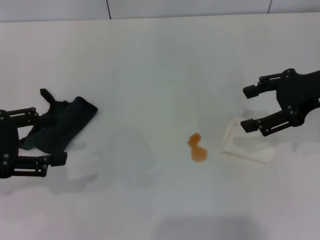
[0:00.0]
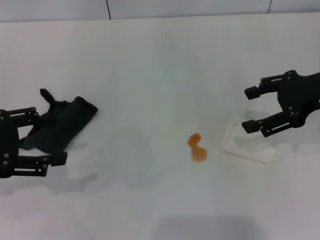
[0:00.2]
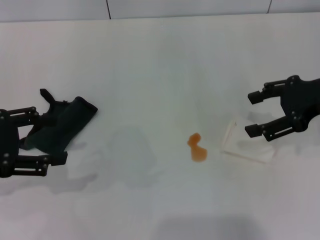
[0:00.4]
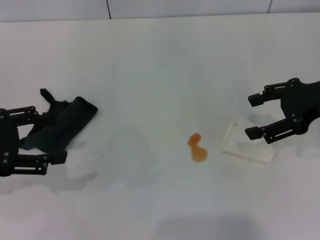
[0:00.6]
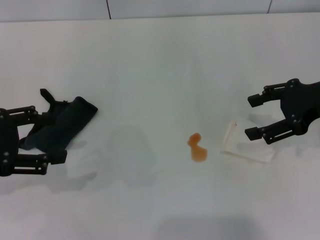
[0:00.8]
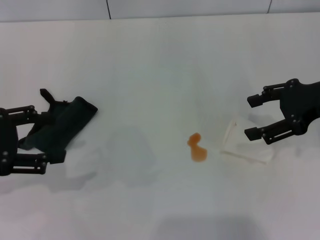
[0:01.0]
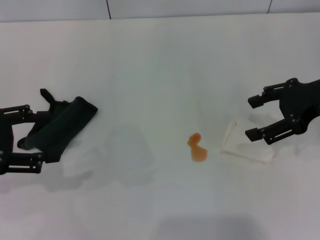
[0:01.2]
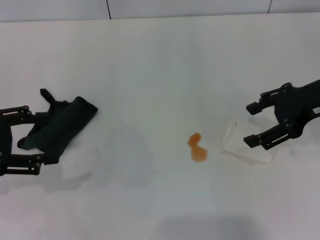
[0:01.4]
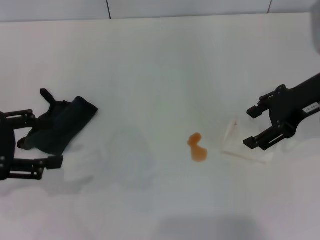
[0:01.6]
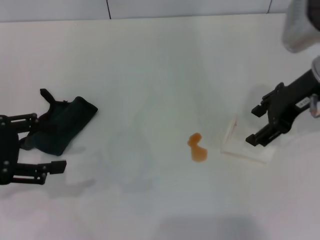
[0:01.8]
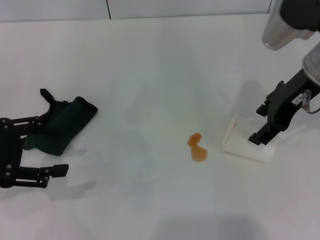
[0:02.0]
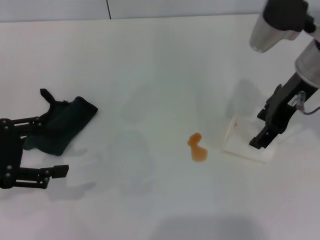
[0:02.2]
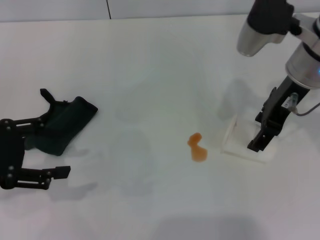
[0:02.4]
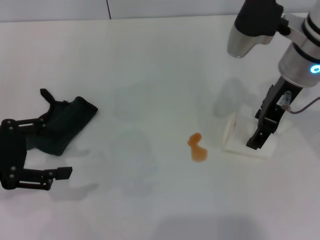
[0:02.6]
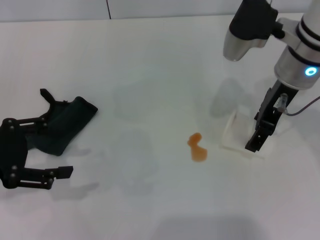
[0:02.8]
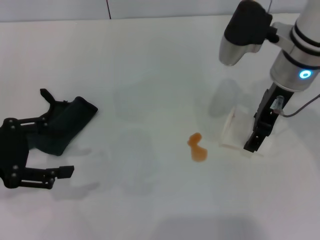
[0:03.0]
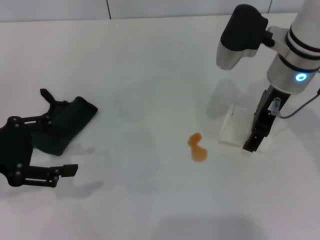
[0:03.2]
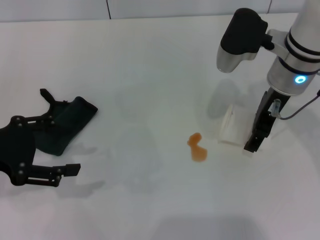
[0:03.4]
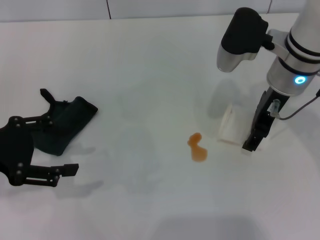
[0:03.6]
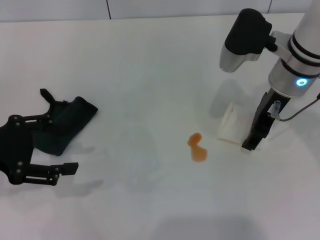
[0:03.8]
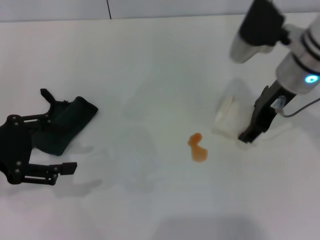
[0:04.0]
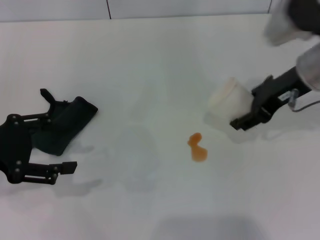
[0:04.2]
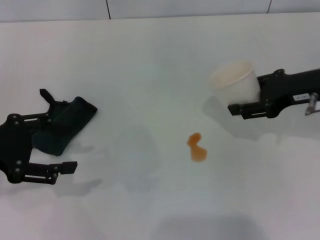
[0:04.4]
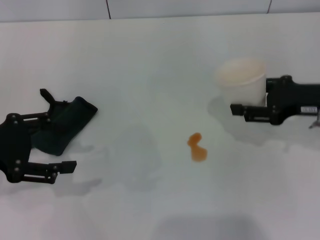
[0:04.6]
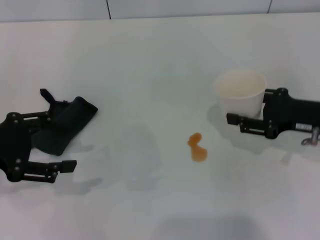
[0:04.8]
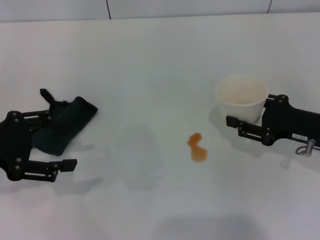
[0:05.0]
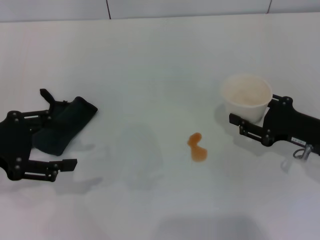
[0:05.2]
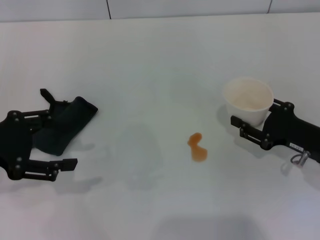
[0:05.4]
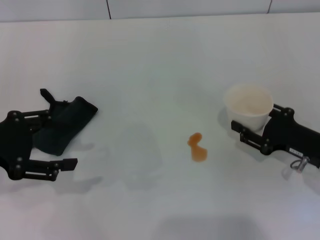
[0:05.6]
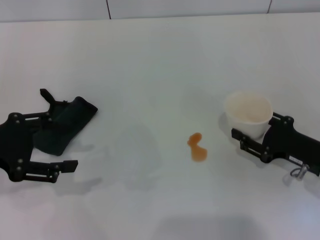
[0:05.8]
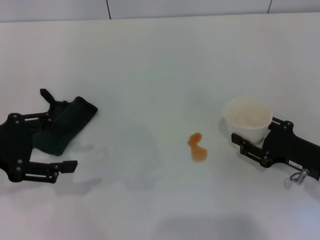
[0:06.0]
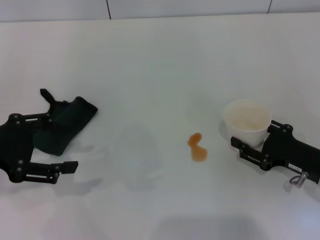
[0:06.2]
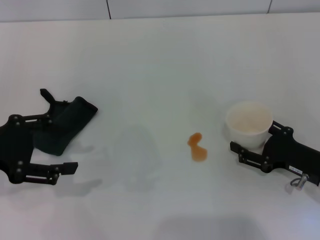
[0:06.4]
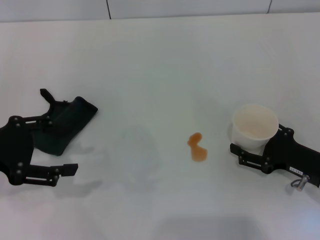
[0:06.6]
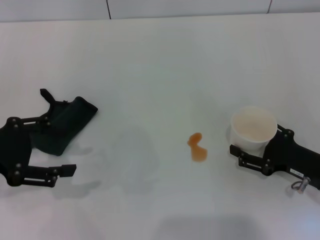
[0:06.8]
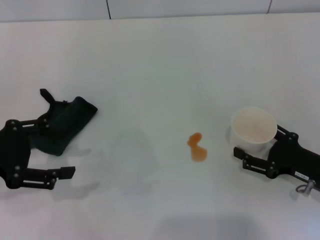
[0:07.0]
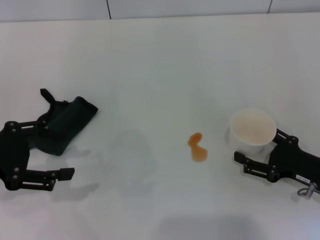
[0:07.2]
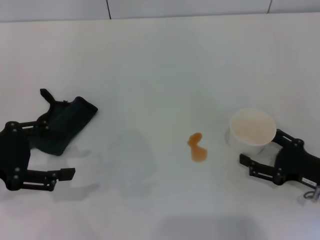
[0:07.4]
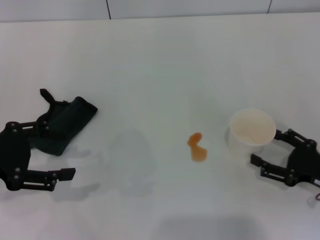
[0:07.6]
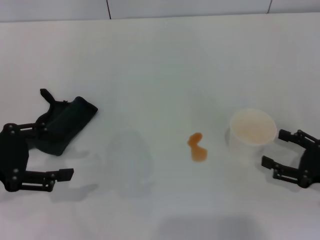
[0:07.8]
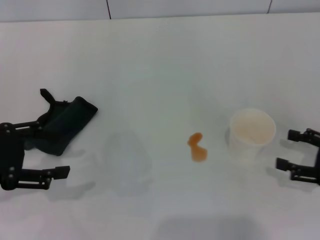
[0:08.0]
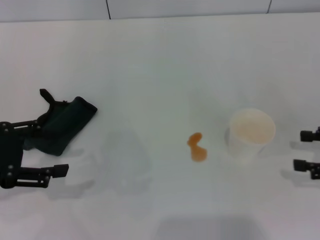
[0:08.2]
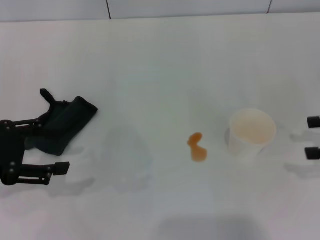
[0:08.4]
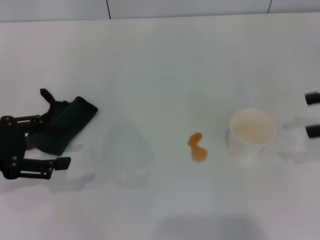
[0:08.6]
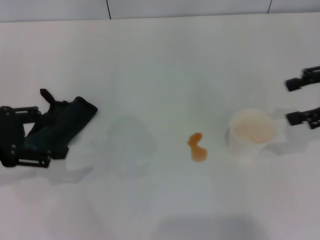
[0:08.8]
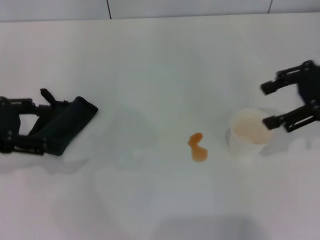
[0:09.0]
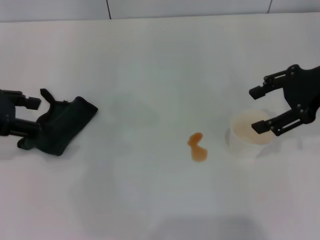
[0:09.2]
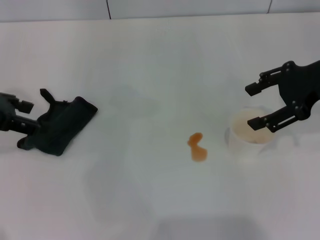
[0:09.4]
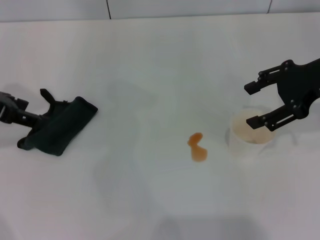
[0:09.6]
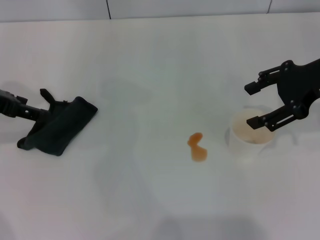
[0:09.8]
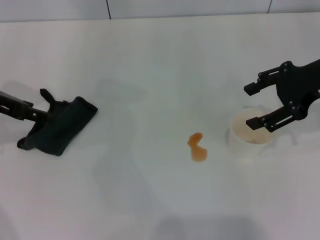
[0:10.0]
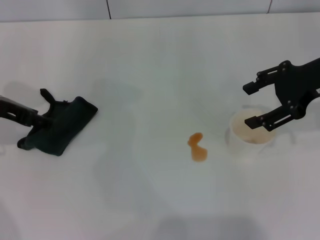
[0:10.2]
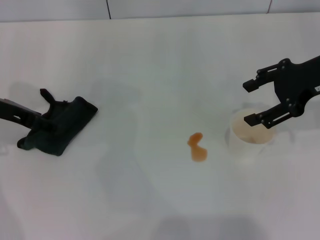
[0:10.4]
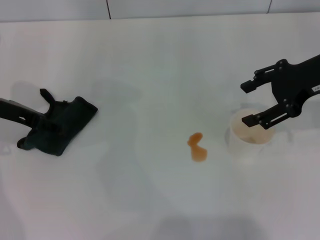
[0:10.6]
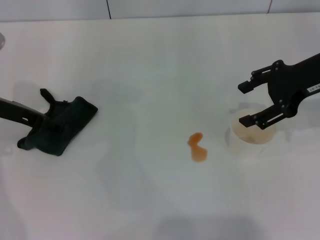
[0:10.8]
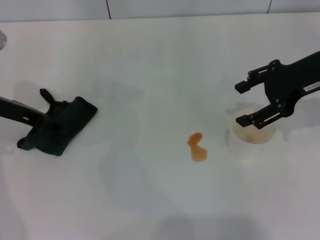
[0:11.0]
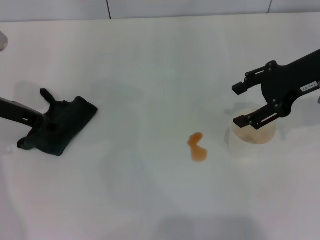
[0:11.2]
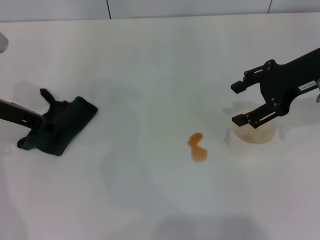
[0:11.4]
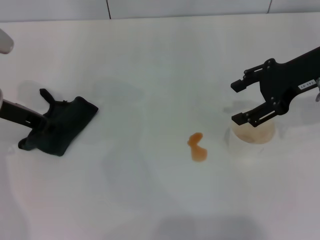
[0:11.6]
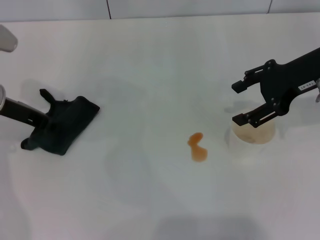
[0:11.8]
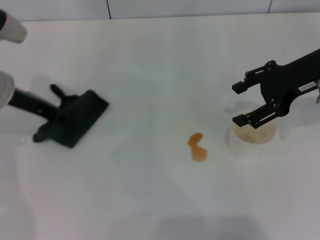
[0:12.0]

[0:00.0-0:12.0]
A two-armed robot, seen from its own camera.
Step, 0:00.0 to 0:03.4: Grasp the paper cup with the right gripper.
Step, 0:03.6 to 0:07.6: Stand the paper cup upright with the right gripper.
Step, 0:07.8 to 0:11.6: Grasp the rag with the left gripper.
0:01.6 to 0:03.0: The right gripper is displaced to the left by approximately 10 cm.
0:03.0 to 0:04.4: The right gripper travels to the right by some 10 cm, and closes.
0:04.4 to 0:06.0: The right gripper is displaced downward and backward by roughly 15 cm.
0:06.0 to 0:07.6: The right gripper opens up.
0:07.6 to 0:09.0: The right gripper heads upward and forward, covering about 25 cm.
0:09.0 to 0:10.4: The left gripper moves forward, some 5 cm.
0:10.4 to 0:12.0: The left gripper closes its fingers.

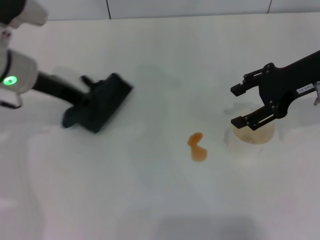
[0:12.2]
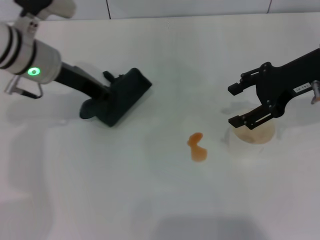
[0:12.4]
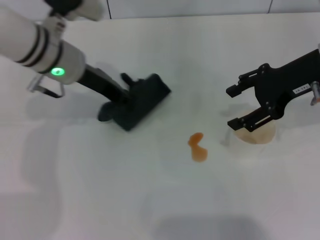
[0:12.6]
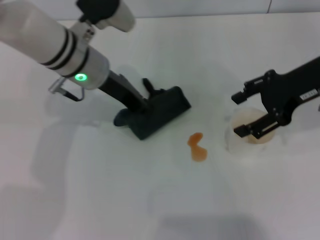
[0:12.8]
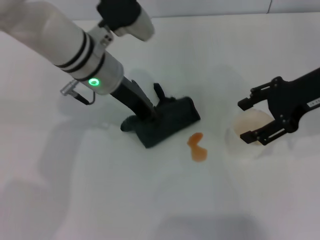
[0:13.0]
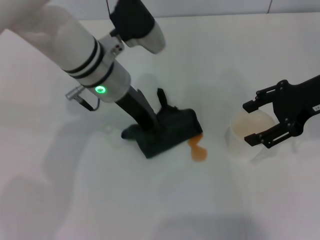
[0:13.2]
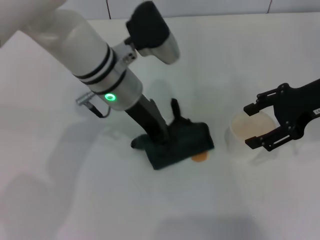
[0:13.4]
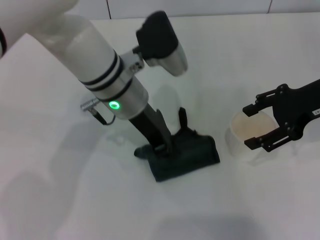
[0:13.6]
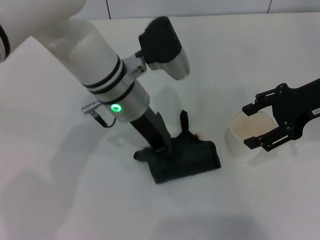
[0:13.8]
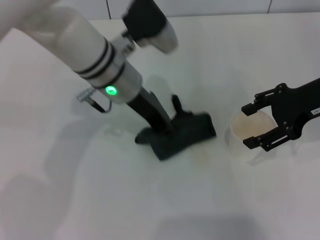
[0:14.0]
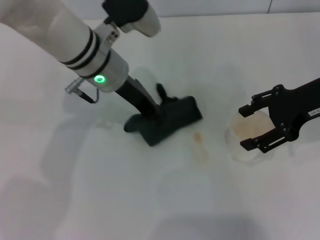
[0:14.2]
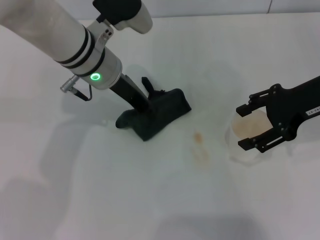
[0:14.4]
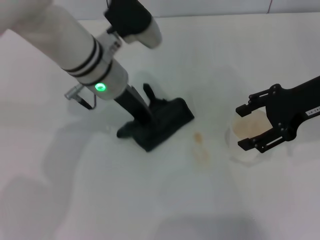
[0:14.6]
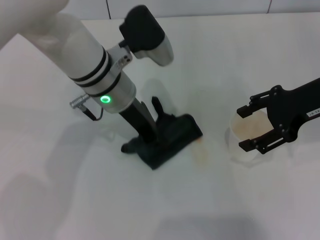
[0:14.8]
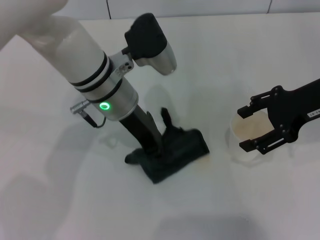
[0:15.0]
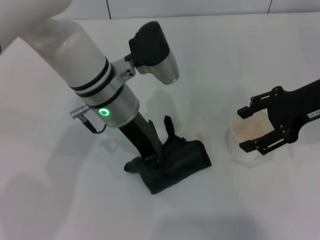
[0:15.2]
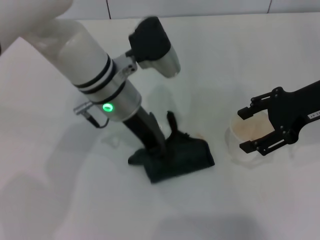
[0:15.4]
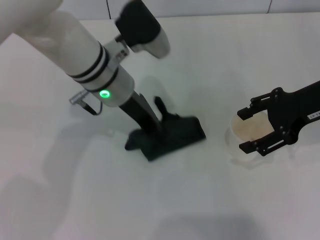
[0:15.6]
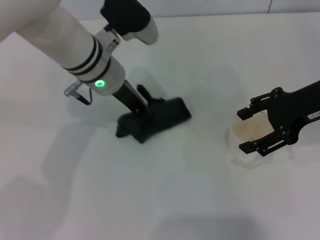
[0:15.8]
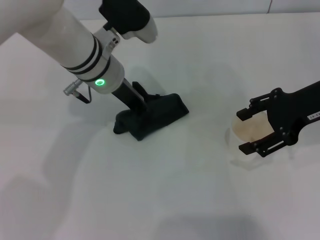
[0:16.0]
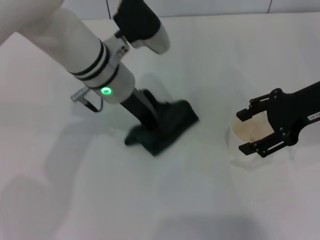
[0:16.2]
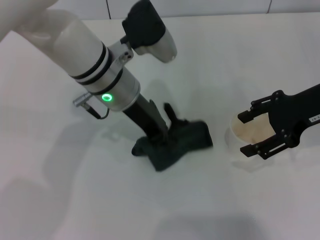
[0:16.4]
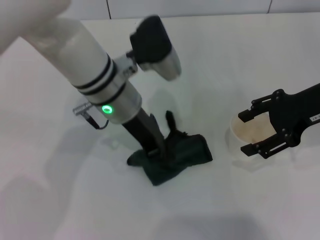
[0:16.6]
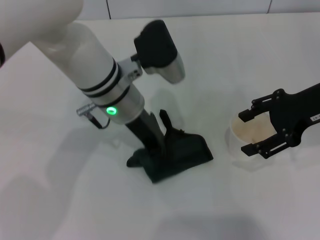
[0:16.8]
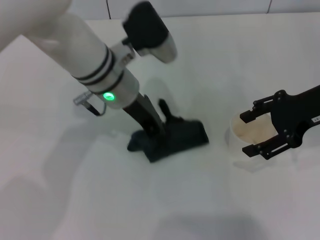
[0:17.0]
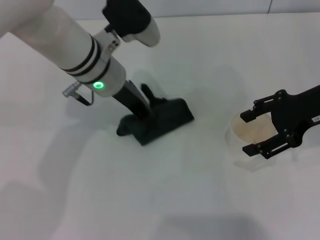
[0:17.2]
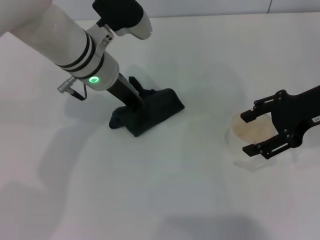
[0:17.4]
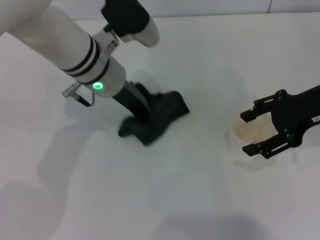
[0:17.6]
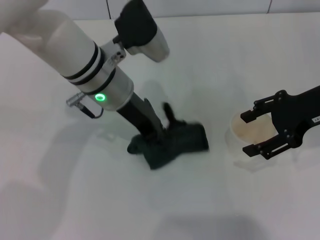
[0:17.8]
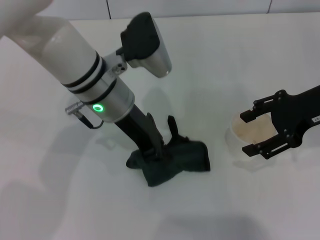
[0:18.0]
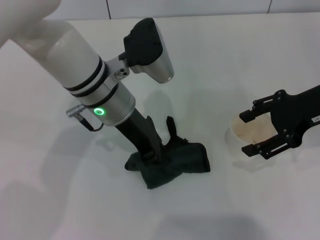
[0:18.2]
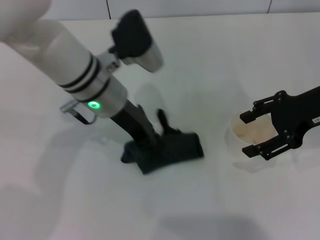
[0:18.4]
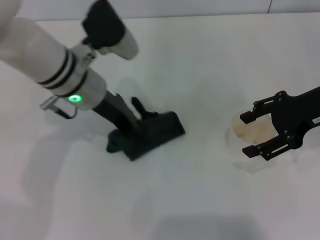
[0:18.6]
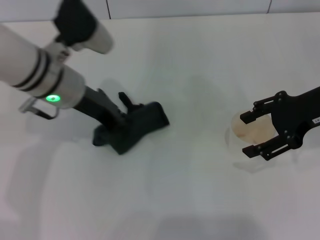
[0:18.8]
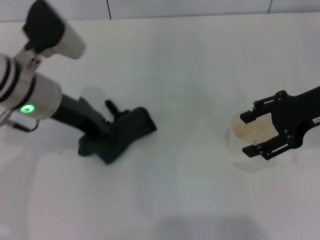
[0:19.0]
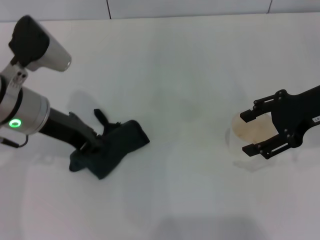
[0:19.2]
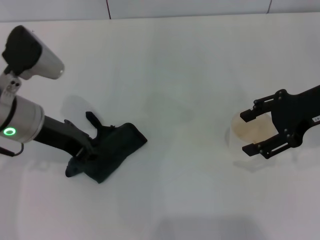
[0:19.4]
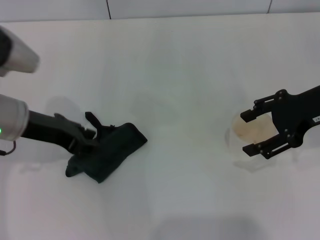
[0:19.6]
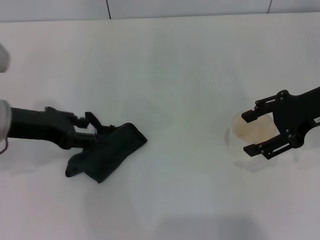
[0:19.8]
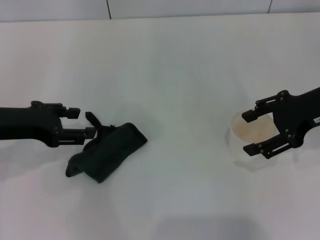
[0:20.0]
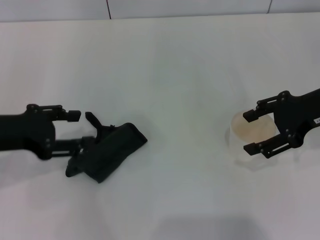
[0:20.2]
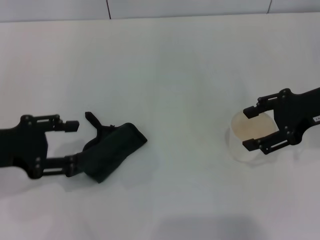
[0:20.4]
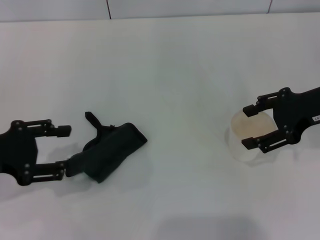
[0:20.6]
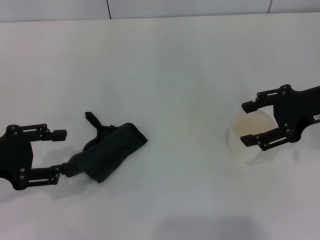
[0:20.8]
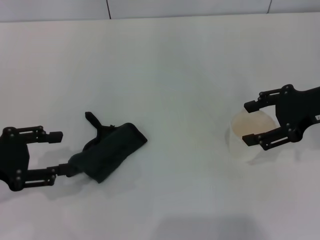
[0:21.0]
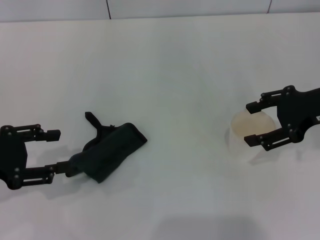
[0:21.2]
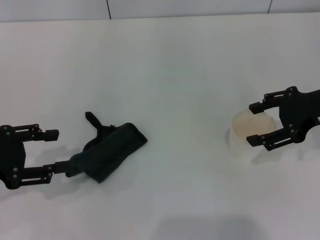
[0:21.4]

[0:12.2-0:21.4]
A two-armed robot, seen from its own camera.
Step, 0:12.2 to 0:19.4: Wipe the stains off the table with the left gripper.
Step, 0:19.6 to 0:20.0: Place the rag on the table with the left gripper.
0:12.2 to 0:13.8: The left gripper is displaced to the right by approximately 15 cm.
0:18.4 to 0:19.8: The left gripper shifts about 15 cm to the left.
0:19.8 to 0:21.4: The left gripper travels to the left and backward by about 10 cm, and opens up.

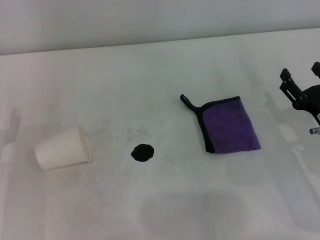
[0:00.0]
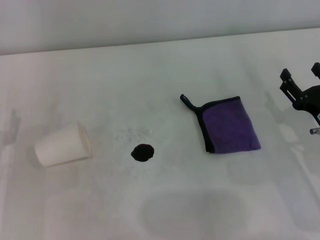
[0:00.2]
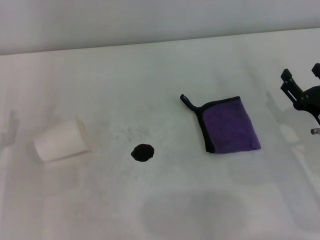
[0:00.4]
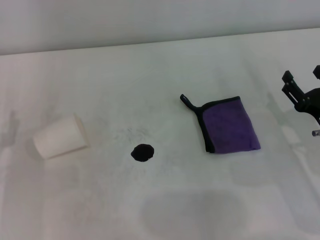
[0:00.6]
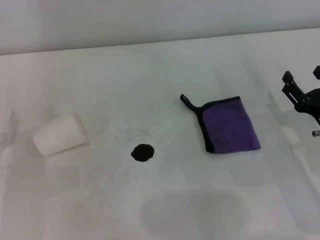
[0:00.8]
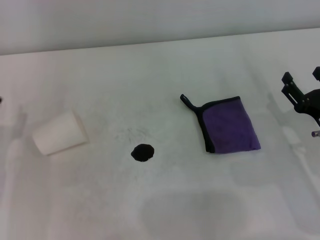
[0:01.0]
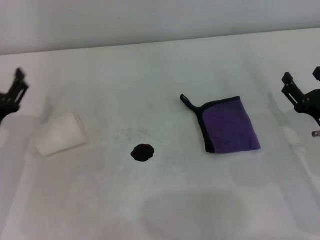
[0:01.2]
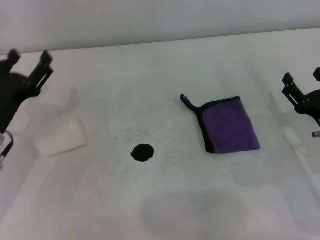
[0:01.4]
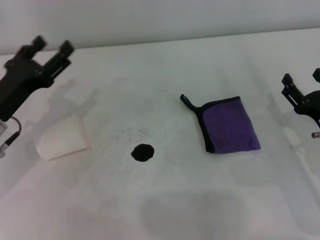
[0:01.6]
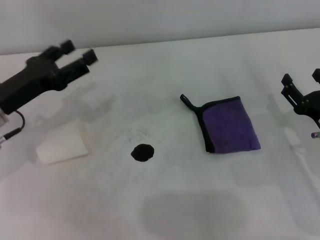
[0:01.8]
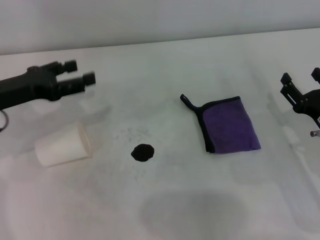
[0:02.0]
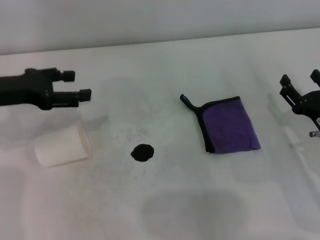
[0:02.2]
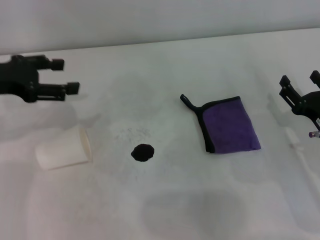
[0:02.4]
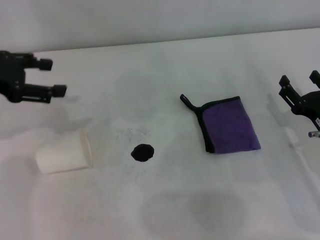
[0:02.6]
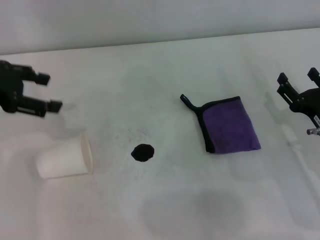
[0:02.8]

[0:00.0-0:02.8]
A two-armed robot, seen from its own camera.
0:00.0 to 0:01.4: The left gripper shifts by some 5 cm.
0:01.4 to 0:02.8: The left gripper moves upward and forward, approximately 15 cm.
